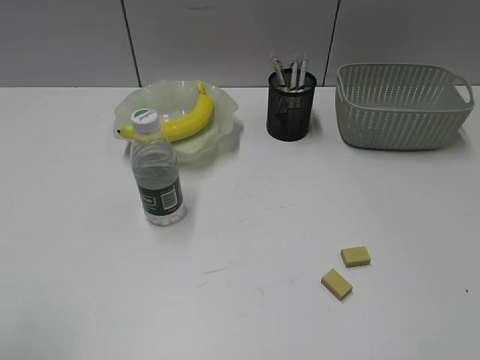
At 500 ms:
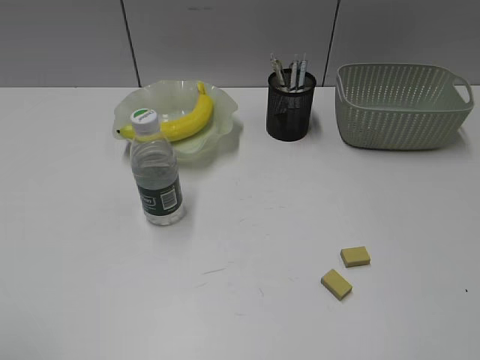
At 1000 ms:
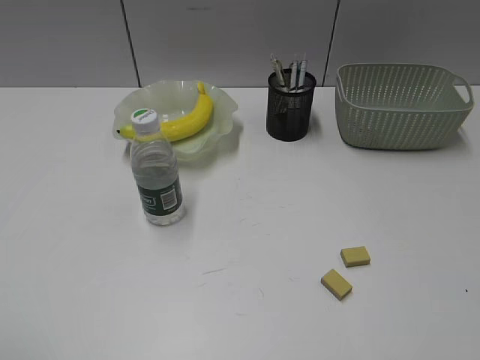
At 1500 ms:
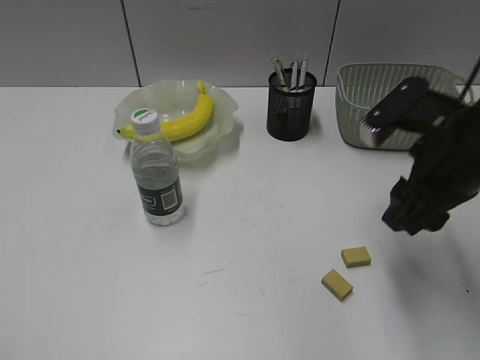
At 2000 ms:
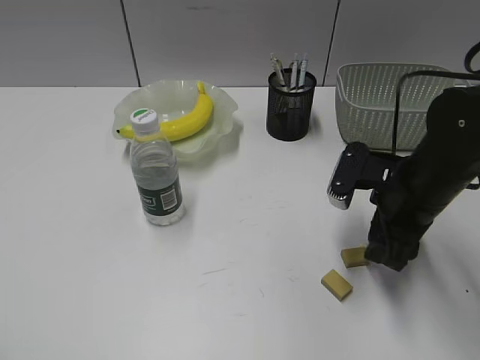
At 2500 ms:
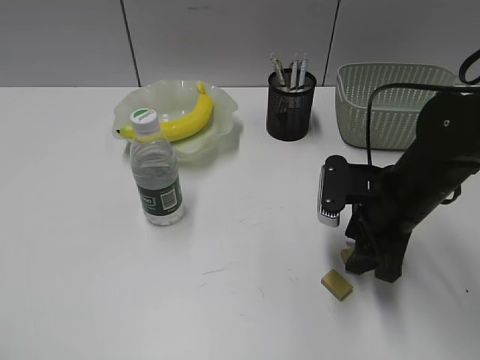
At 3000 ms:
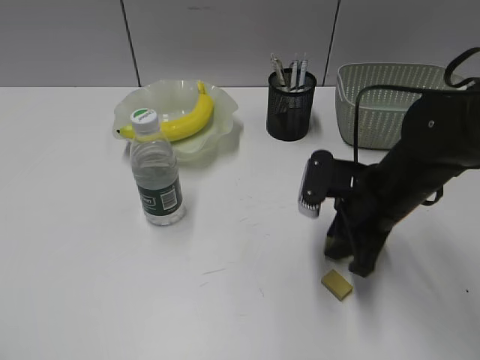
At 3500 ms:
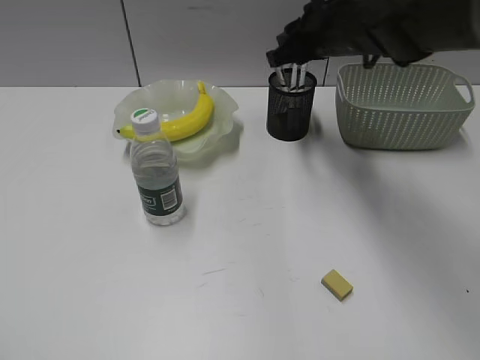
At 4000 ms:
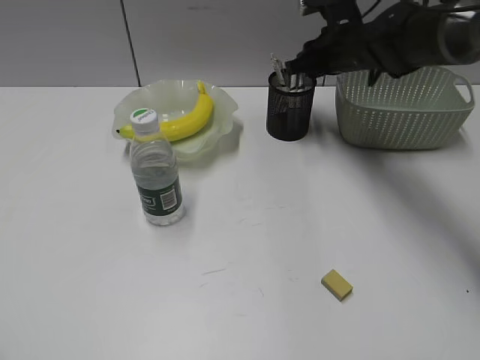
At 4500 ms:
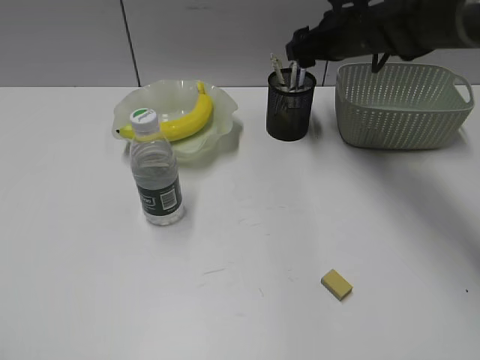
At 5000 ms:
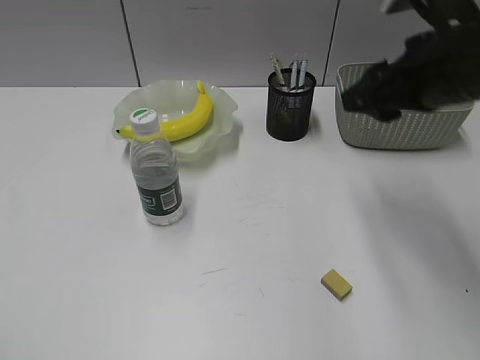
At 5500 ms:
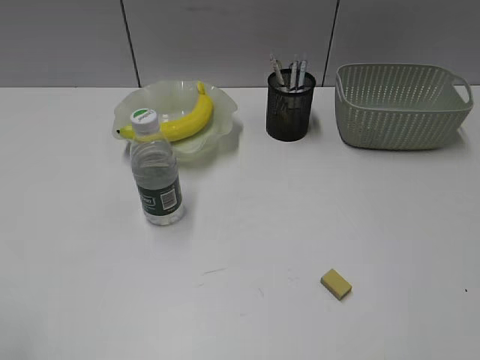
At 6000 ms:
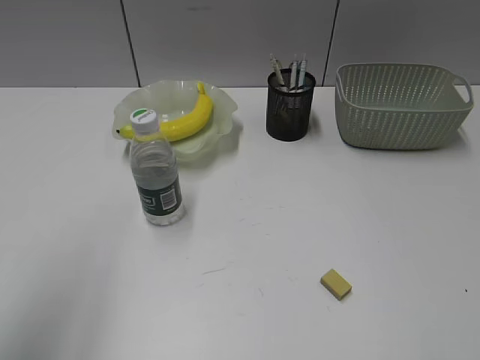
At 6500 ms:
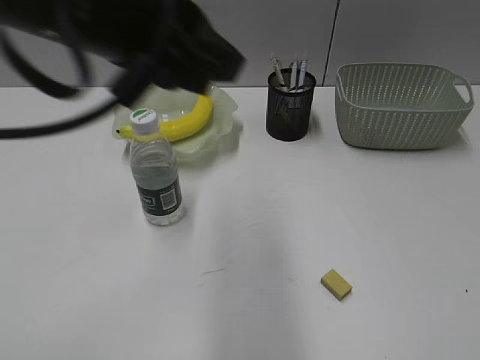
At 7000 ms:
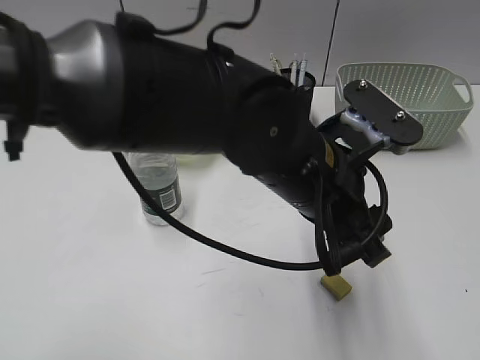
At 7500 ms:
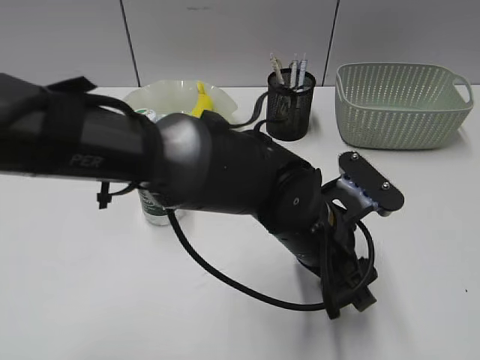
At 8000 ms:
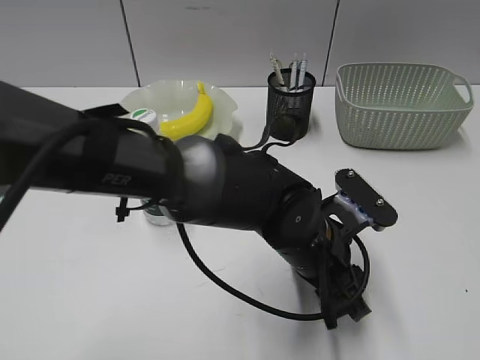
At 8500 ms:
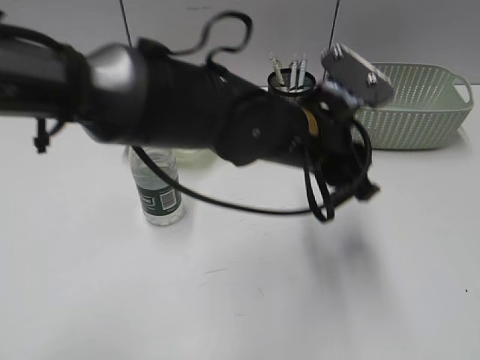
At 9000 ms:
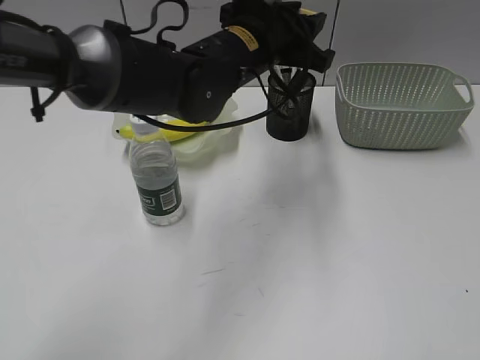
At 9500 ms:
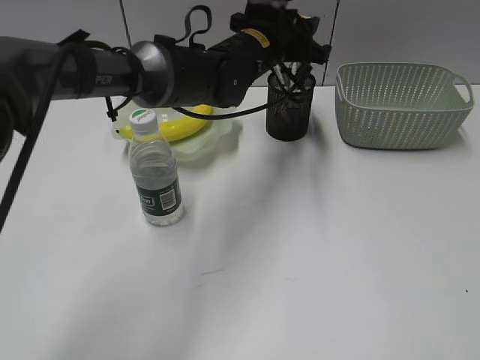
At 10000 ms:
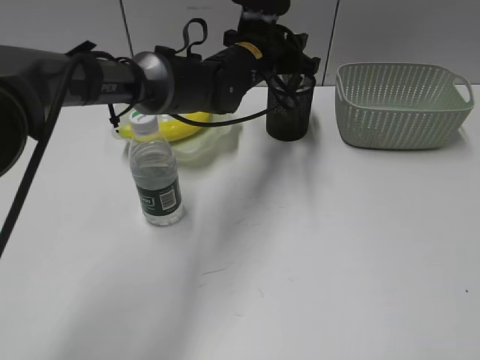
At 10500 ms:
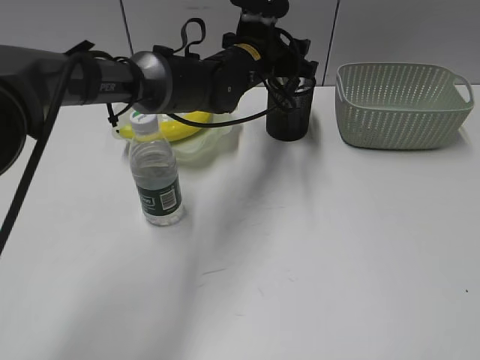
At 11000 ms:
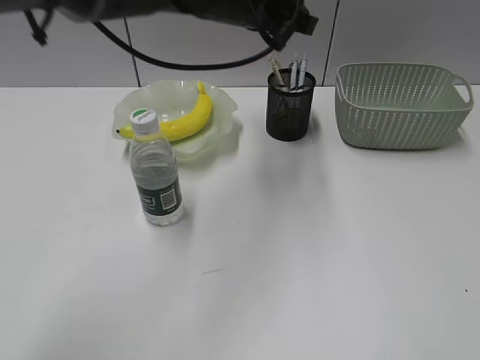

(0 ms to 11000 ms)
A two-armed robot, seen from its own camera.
Step, 0 ms - 2500 ms: Grasp the eraser with right gripper.
Step, 3000 ms - 4000 ms: Place the eraser in pen holder with right gripper.
Step, 4500 ms - 8000 ms: Grasp the eraser with left gripper.
Step, 8500 ms - 10500 ms: Place the eraser in pen holder with left gripper.
0 ms - 2000 ms: The right gripper moves forward, downward and to the left, approximately 35 cm, and opens its fingers.
2000 ms - 3500 ms: The right gripper shifts some 20 cm forward, upward and to the left, and closes up.
3500 ms - 5500 ms: The right gripper shifts some 35 cm backward and to the right, and opens its fingers.
5500 ms - 7500 ms: The left gripper moves to the right, forward and downward, roughly 50 cm, and opens. Meanwhile the right gripper moves backward, about 10 cm.
7500 ms - 9000 ms: The left gripper goes about 20 cm forward, upward and to the left, and closes up.

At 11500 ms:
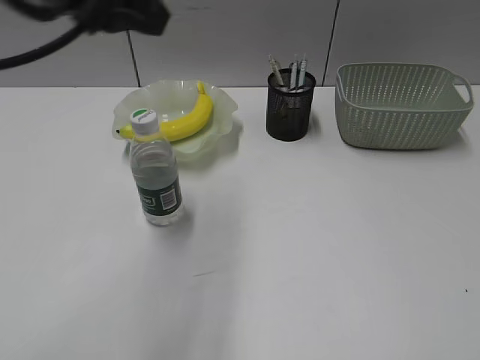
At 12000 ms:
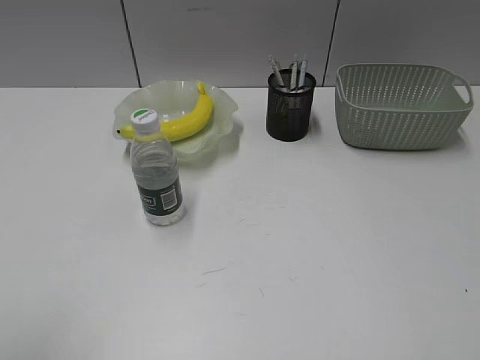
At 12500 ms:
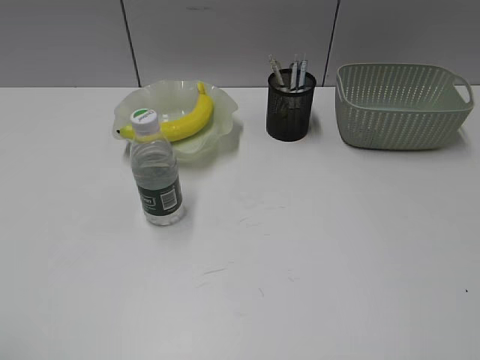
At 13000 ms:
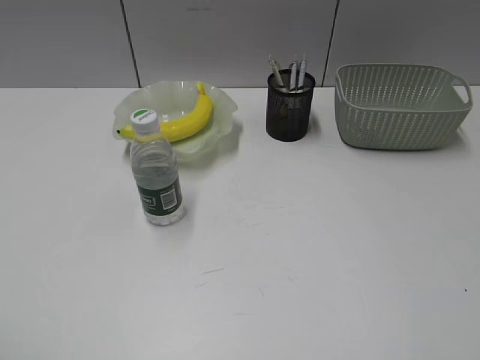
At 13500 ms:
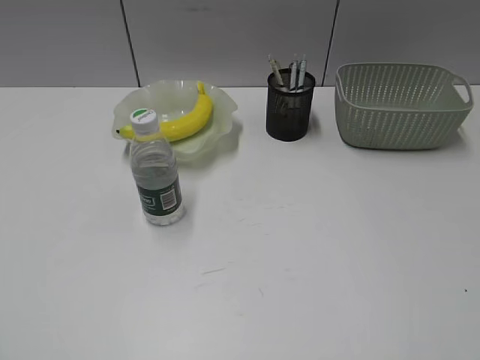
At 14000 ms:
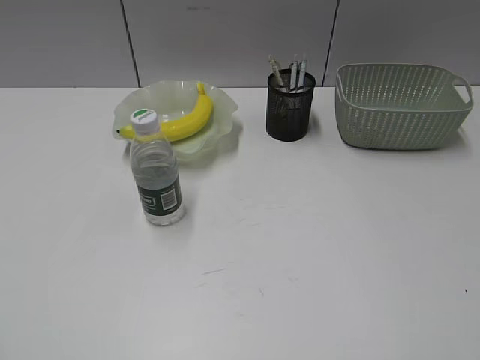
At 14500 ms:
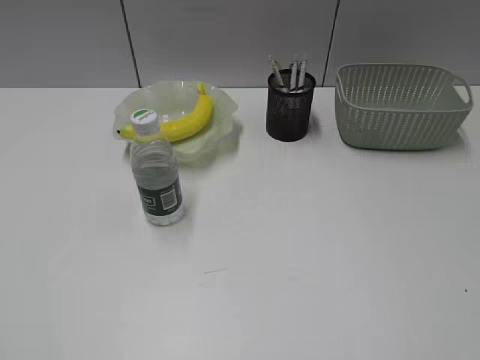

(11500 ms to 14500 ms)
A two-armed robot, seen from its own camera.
11500 ms - 13000 ms: The left gripper travels backward and to the left by roughly 30 cm, and opens up.

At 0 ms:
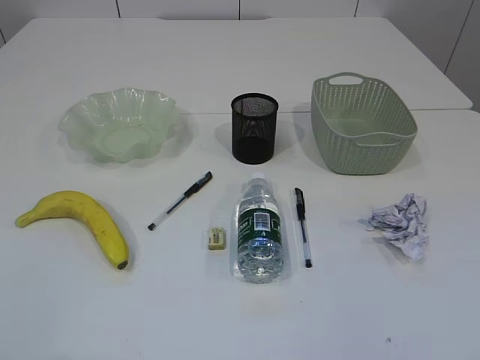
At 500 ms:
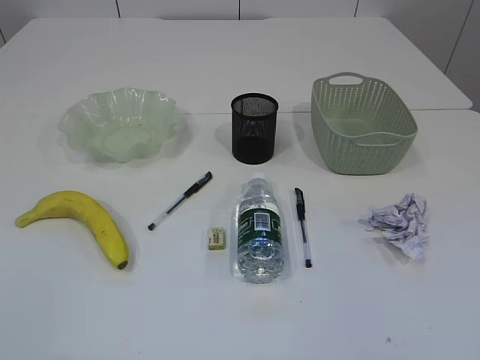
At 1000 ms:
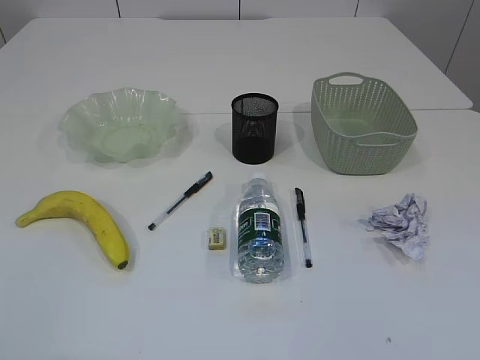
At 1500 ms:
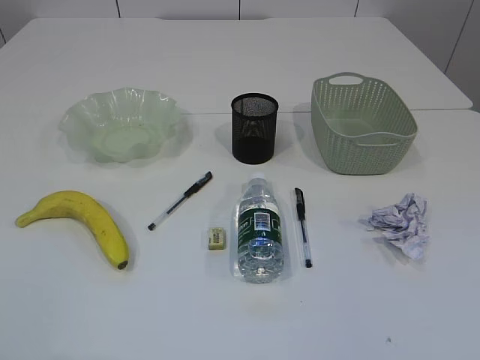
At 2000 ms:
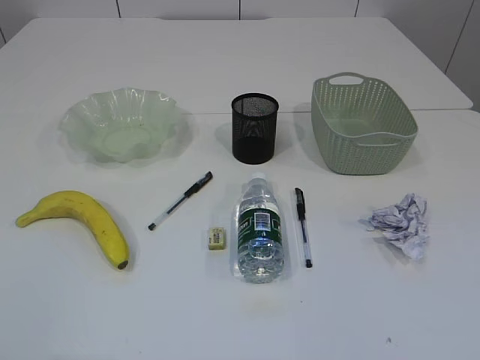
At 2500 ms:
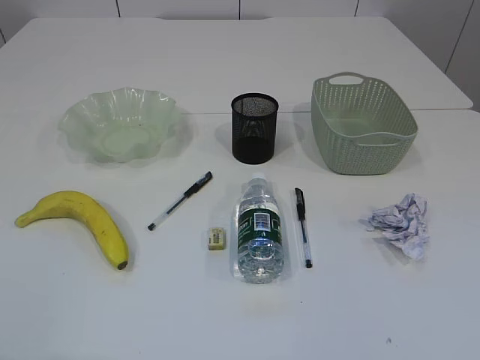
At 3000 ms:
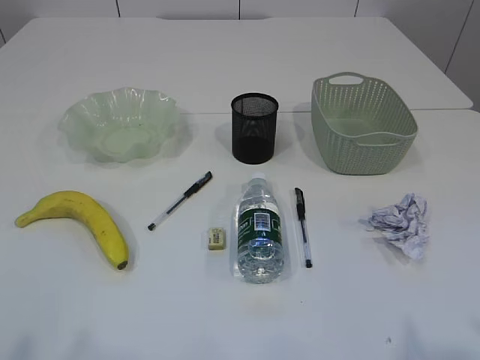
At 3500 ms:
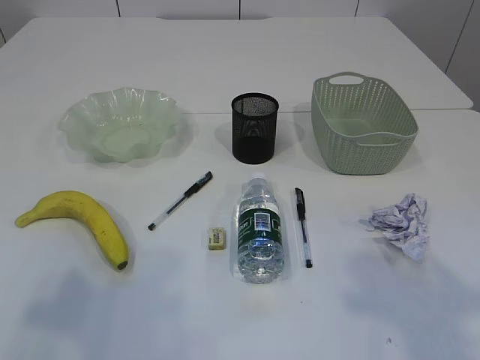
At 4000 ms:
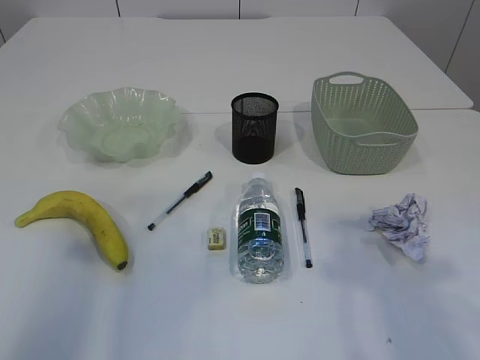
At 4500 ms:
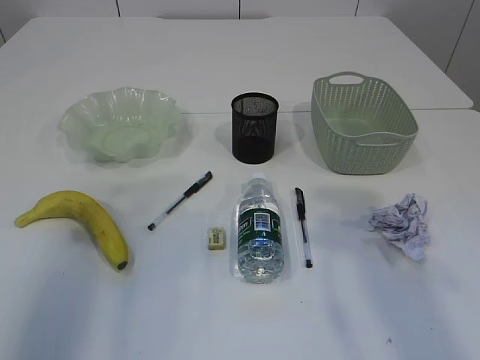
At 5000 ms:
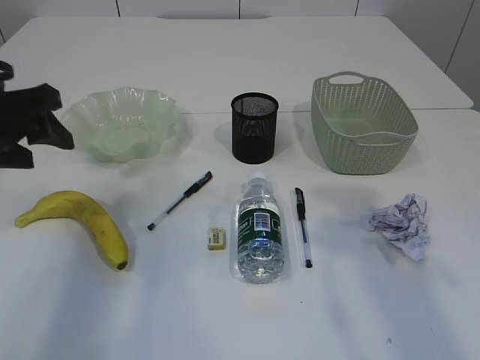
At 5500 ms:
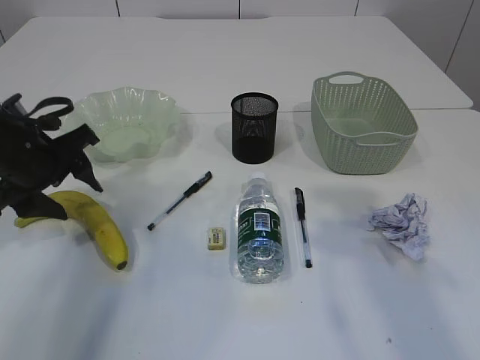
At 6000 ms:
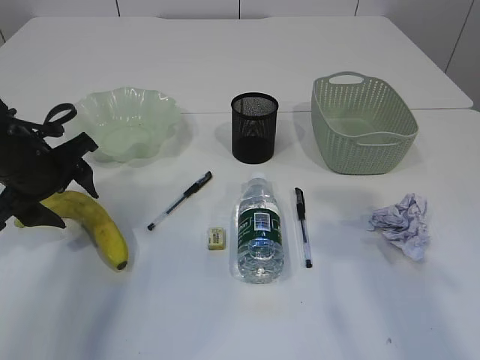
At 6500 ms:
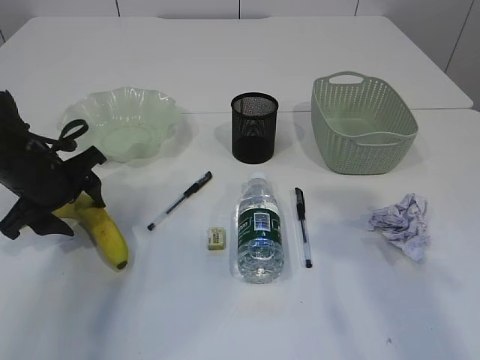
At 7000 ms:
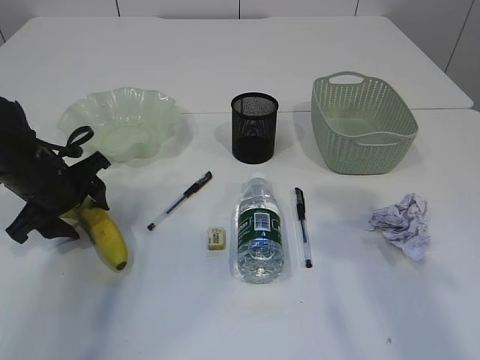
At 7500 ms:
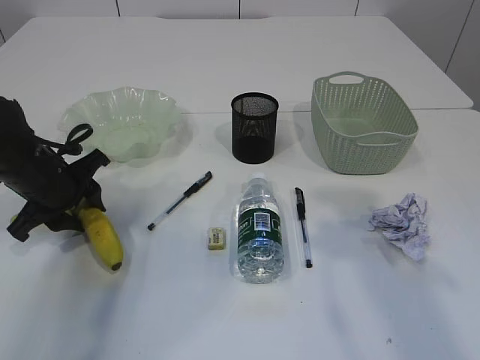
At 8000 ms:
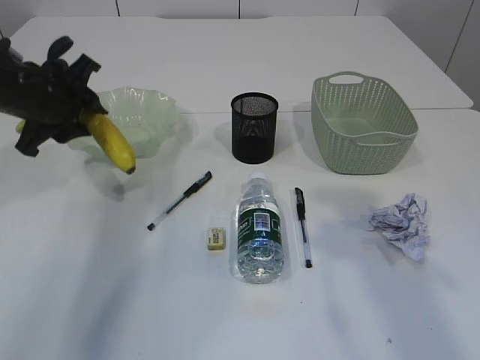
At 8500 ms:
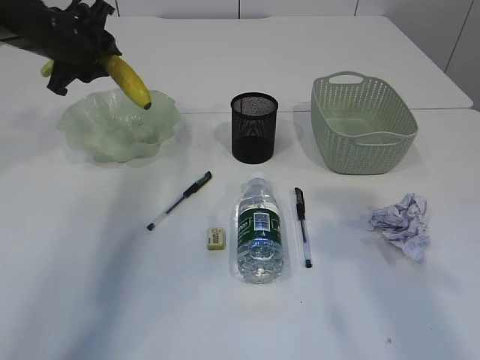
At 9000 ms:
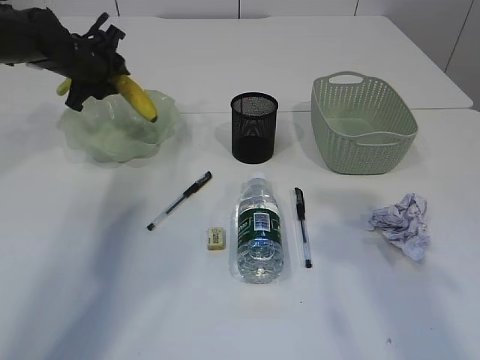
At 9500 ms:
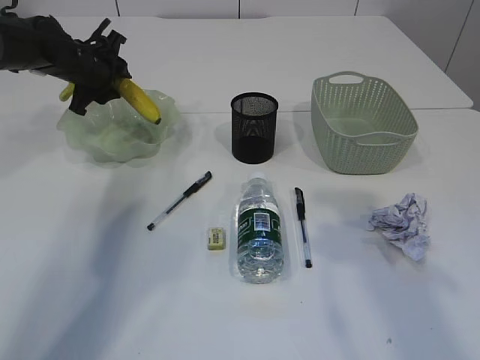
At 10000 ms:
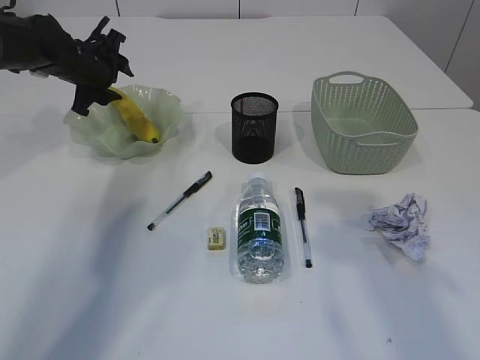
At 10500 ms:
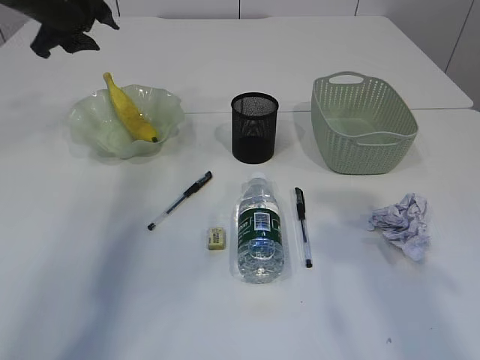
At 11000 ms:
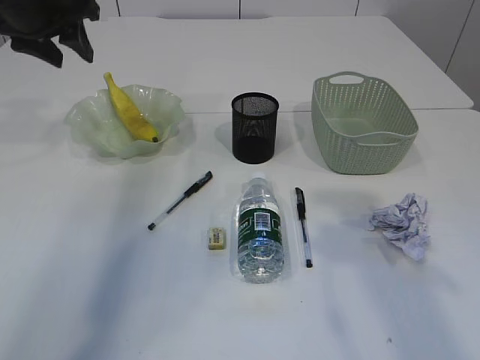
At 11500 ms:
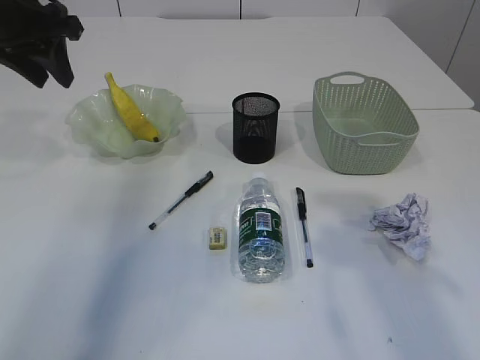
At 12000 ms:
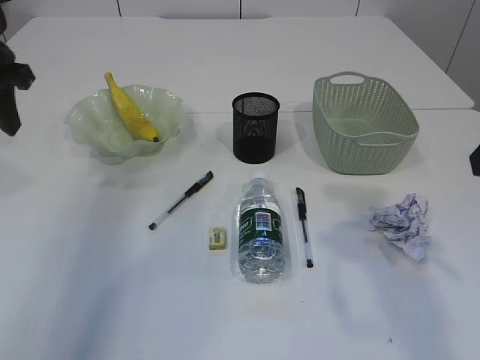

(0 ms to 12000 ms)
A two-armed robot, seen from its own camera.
Step, 8000 ms - 10000 ms: Place the banana in the plate.
2000 ms - 4000 ms: The grippers both shift forward and upward by some 20 cm.
4000 ms - 6000 ms: The left gripper moves downward and forward, approximately 25 cm.
6000 ms - 8000 ms: The left gripper shifts by approximately 5 cm.
8000 ms - 10000 ms: The left gripper moves forward, roughly 15 cm.
10000 ms - 12000 ms: The left gripper shifts some 20 cm backward and upward.
